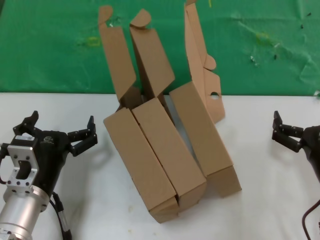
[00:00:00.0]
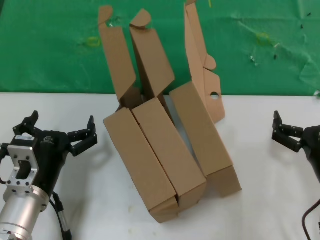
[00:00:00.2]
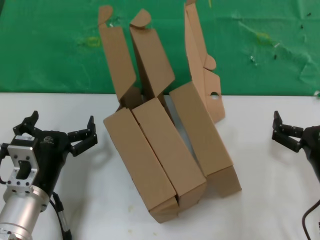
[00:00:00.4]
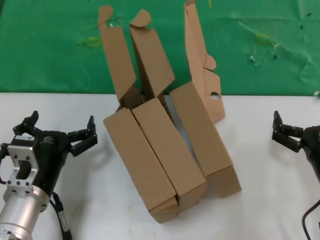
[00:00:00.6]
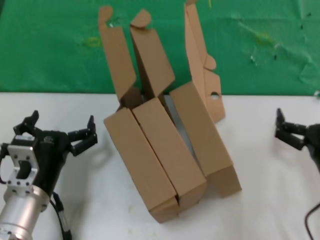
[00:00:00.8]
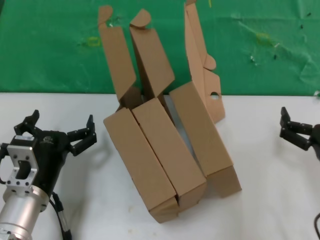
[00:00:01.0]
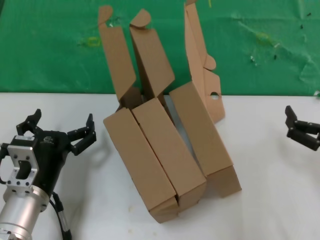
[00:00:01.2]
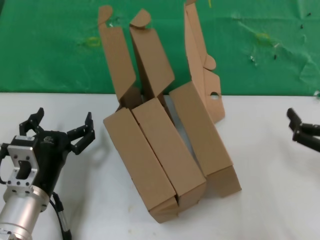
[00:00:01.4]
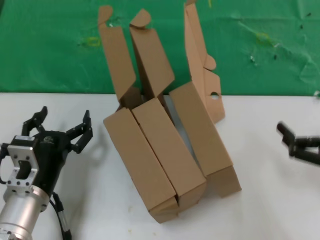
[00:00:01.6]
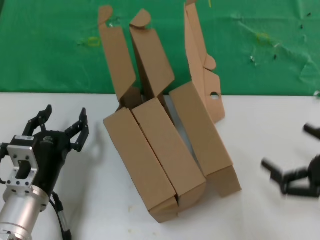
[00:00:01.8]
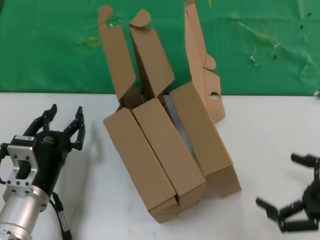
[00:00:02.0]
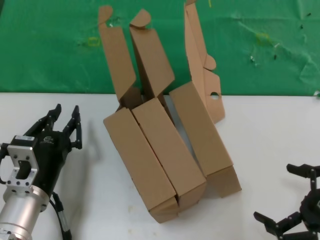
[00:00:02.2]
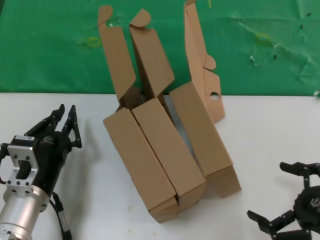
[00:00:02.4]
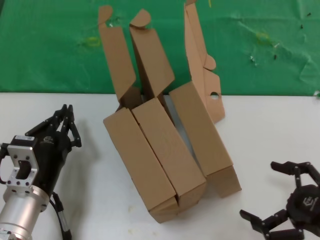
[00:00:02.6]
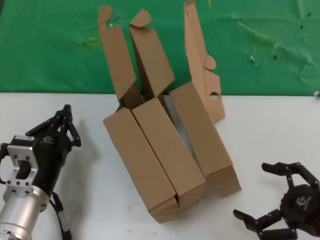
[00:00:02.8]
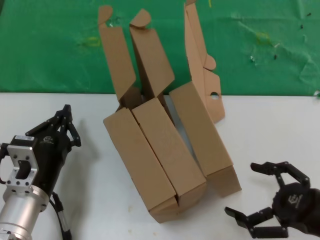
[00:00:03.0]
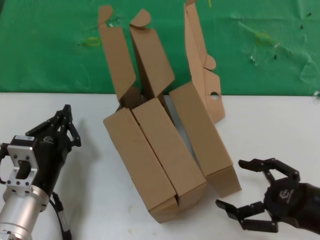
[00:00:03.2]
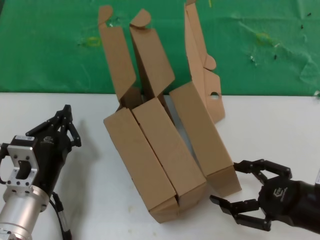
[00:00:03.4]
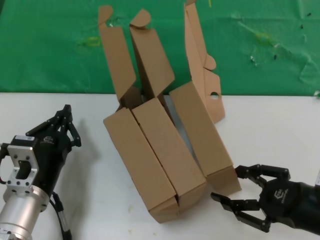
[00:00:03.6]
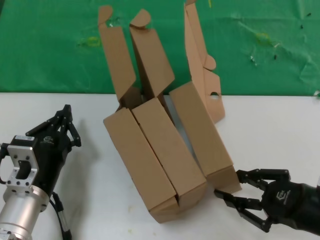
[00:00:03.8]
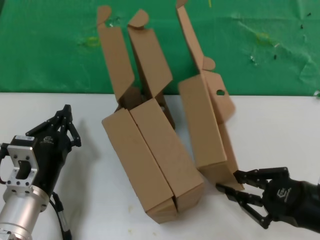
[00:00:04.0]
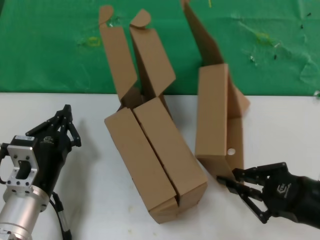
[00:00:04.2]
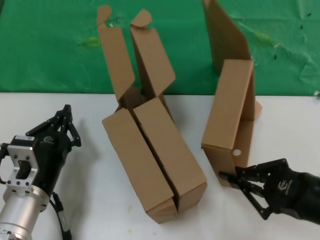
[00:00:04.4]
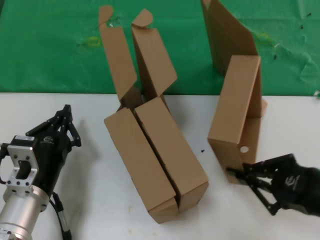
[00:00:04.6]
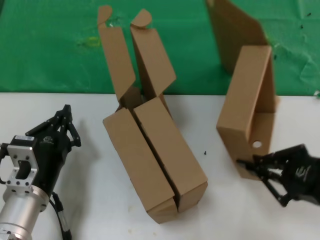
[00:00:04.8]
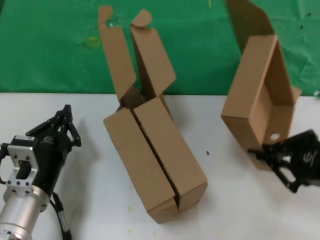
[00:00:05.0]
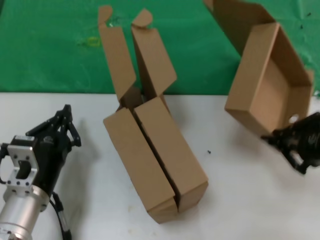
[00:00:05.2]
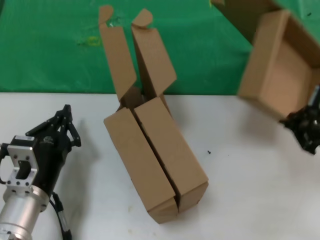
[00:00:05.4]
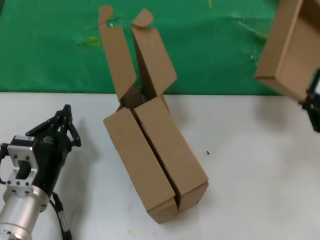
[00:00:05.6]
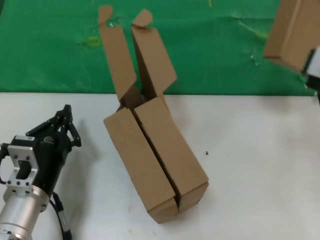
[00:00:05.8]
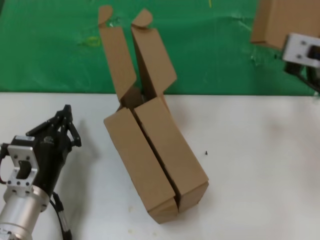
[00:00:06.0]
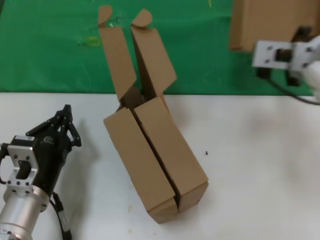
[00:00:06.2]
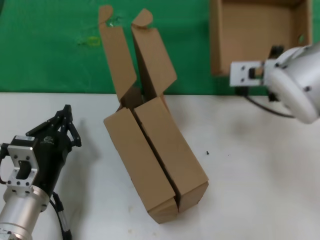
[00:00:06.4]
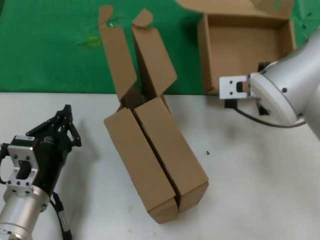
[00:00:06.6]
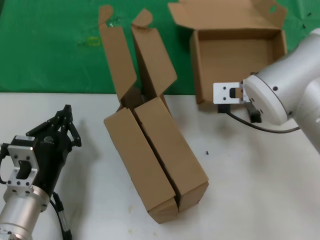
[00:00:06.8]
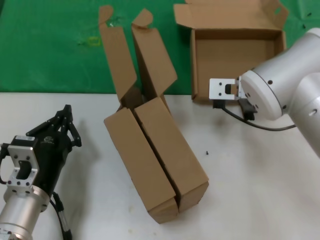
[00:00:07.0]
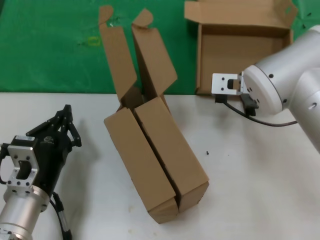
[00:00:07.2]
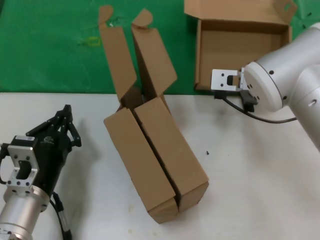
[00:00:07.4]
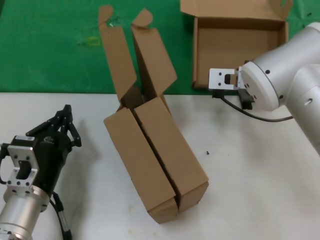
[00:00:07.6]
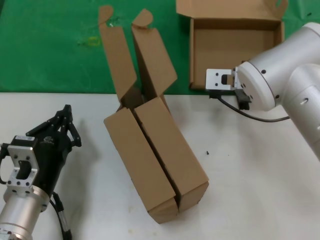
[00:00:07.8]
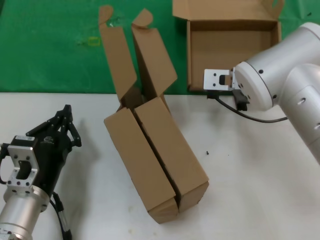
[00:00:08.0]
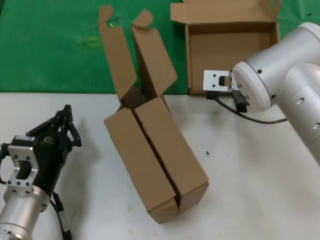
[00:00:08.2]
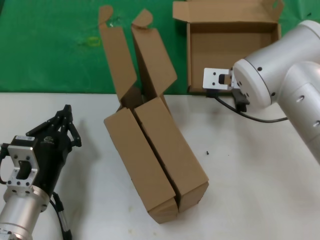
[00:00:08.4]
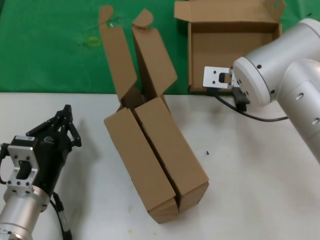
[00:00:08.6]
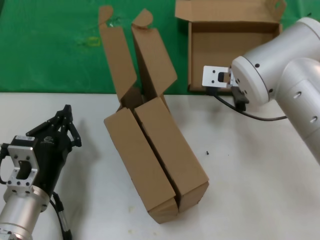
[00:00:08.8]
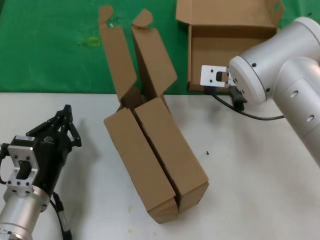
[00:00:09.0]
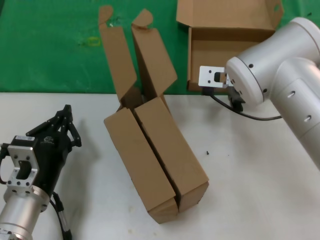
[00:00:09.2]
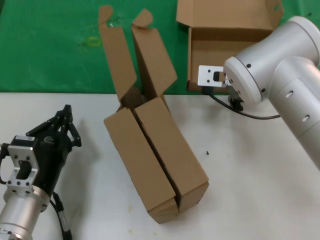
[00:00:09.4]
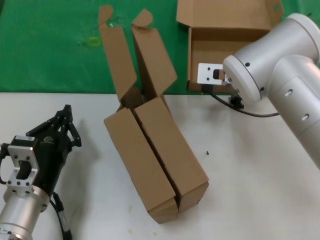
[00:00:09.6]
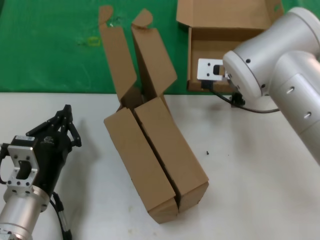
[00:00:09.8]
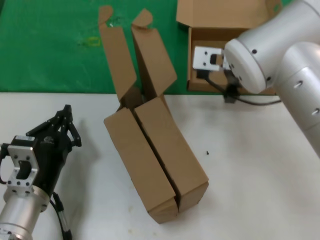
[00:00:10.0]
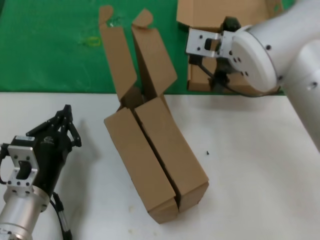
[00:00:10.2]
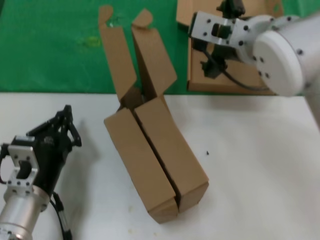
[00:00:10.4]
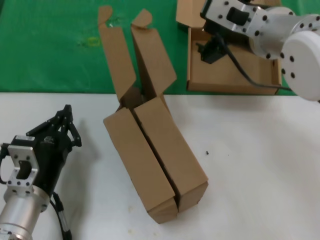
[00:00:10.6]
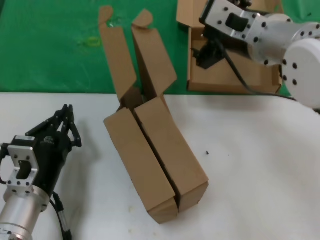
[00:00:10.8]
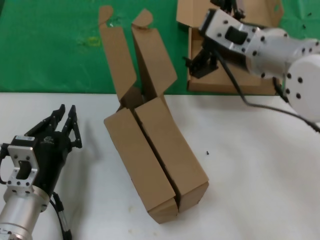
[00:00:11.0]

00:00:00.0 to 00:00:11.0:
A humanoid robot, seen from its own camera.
Task of the whole recording: pick up the paper box and put it at the back.
Step, 00:00:00.0 to 00:00:04.2: Grasp the paper box.
Step, 00:00:04.4 to 00:00:09.6: Place the paper box on the table.
00:00:00.0 to 00:00:01.6: The right hand goes approximately 10 cm to the right.
00:00:03.2 to 00:00:04.8: The right hand shifts roughly 5 cm upward.
00:00:04.8 to 00:00:06.2: The right hand is displaced forward, to the left and upward by approximately 25 cm.
00:00:06.2 to 00:00:07.8: The right hand moves forward, downward and to the left, roughly 15 cm.
00:00:07.8 to 00:00:09.4: The hands make only small movements.
00:00:09.4 to 00:00:11.0: The right hand shifts approximately 5 cm backward.

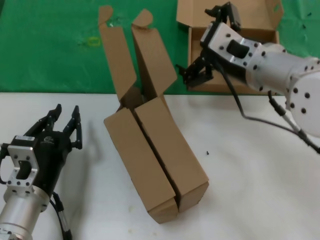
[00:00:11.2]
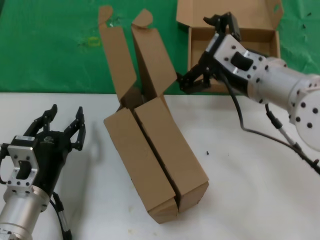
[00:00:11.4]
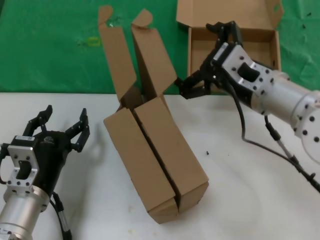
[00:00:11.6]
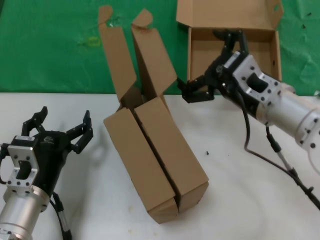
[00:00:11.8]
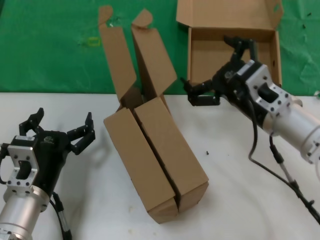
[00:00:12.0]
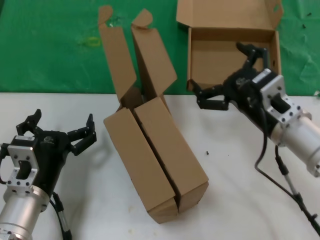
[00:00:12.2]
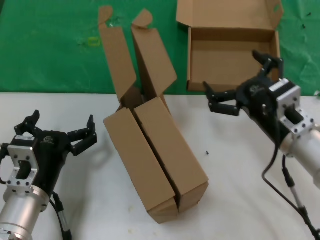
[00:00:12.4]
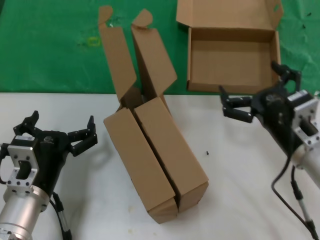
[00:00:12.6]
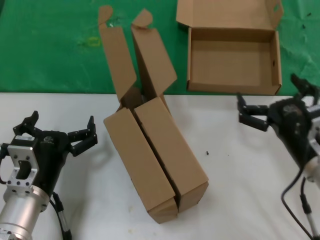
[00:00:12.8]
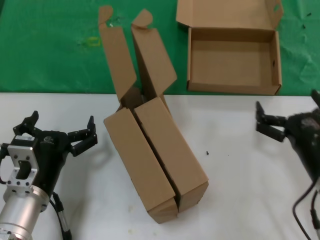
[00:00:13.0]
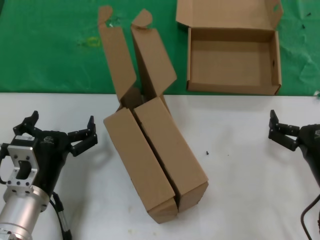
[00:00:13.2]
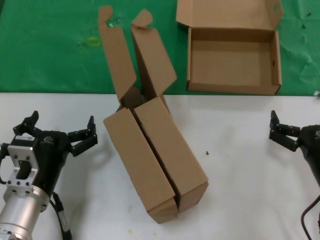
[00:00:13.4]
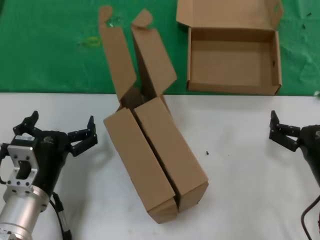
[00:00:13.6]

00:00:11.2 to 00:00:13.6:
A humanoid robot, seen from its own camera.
Task of the whole recording: pick up the paper box and put it at the back.
00:00:11.2 to 00:00:12.4: The right hand goes approximately 15 cm downward and to the right.
00:00:12.4 to 00:00:13.6: The right hand travels downward, to the right and backward by roughly 10 cm.
